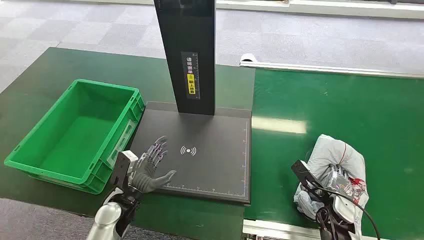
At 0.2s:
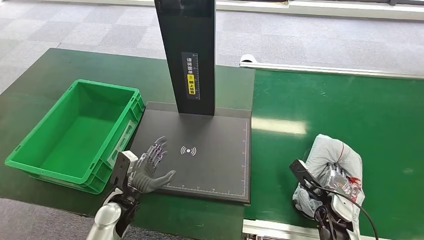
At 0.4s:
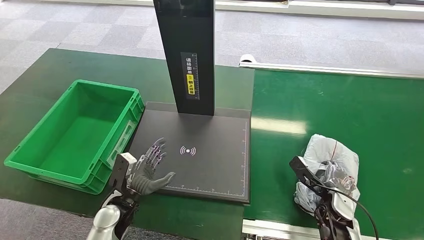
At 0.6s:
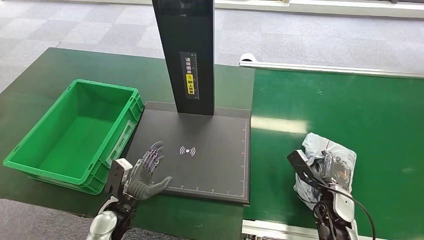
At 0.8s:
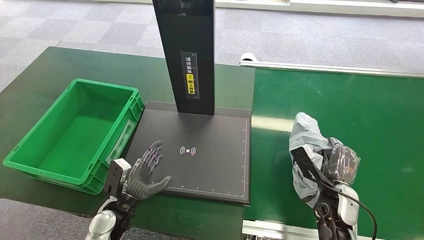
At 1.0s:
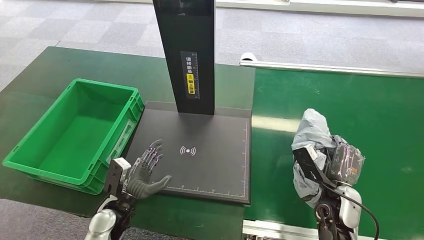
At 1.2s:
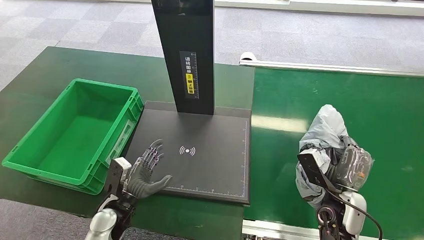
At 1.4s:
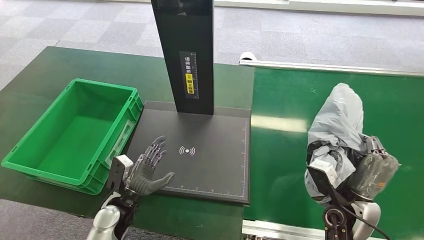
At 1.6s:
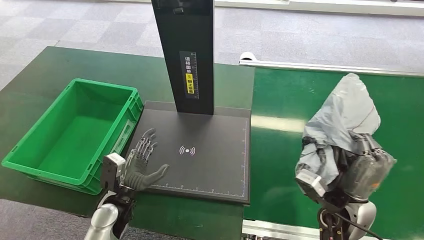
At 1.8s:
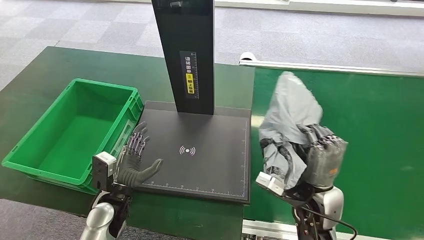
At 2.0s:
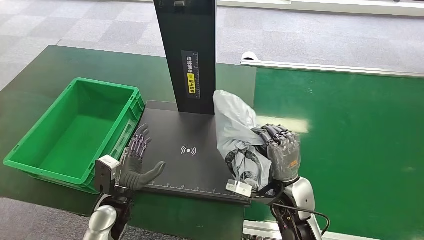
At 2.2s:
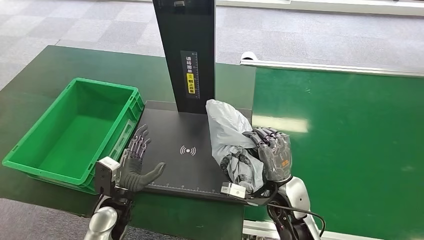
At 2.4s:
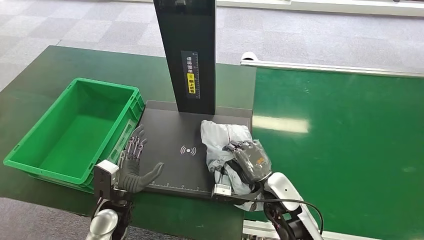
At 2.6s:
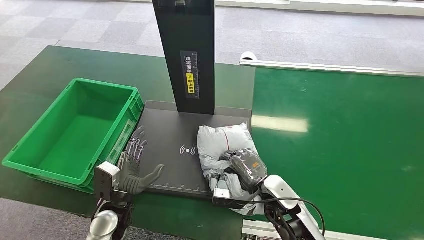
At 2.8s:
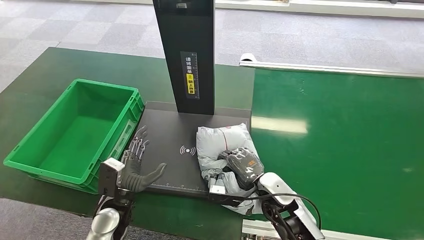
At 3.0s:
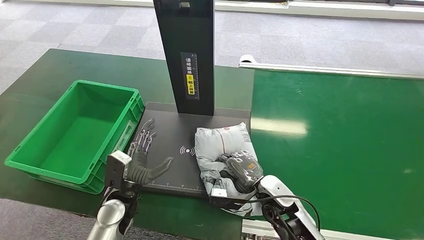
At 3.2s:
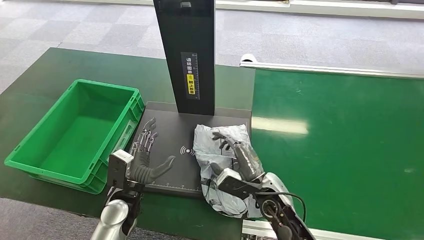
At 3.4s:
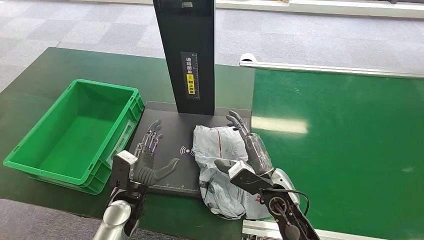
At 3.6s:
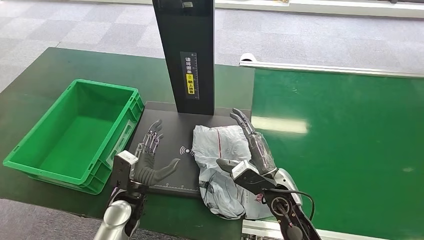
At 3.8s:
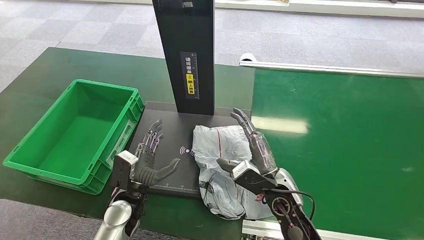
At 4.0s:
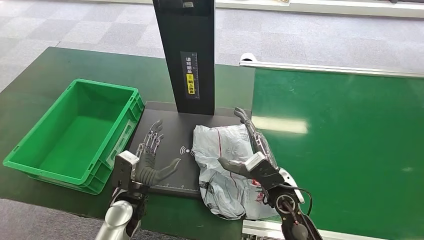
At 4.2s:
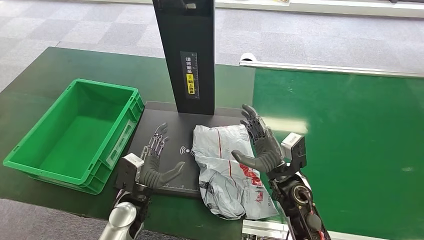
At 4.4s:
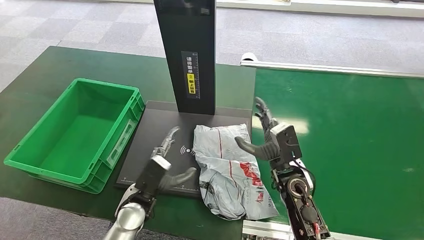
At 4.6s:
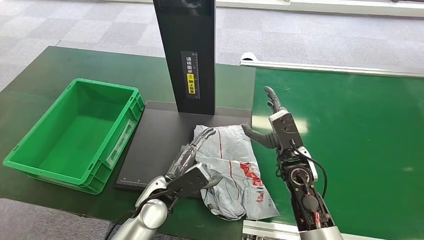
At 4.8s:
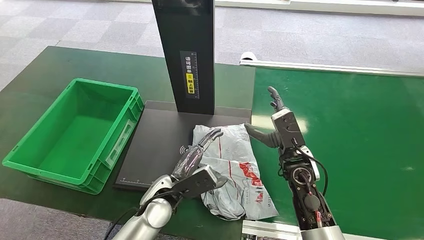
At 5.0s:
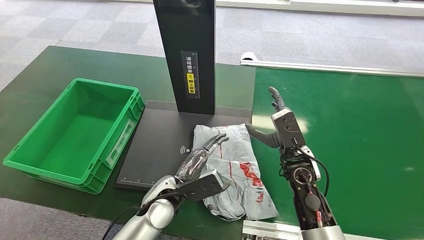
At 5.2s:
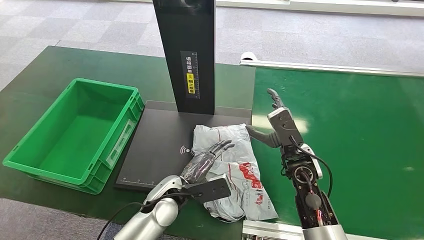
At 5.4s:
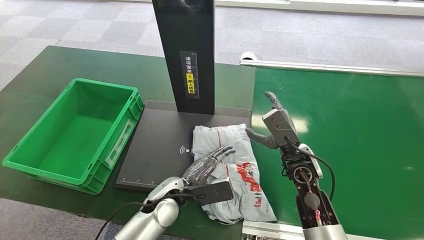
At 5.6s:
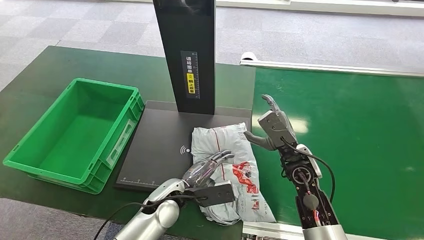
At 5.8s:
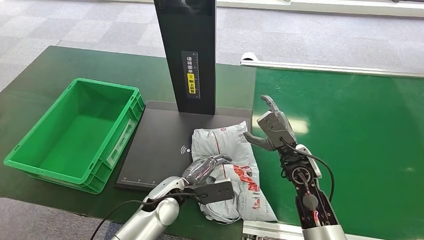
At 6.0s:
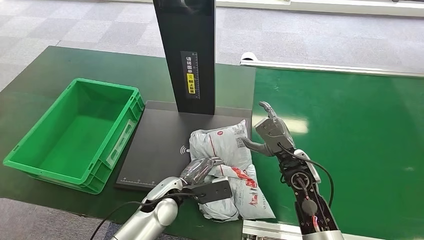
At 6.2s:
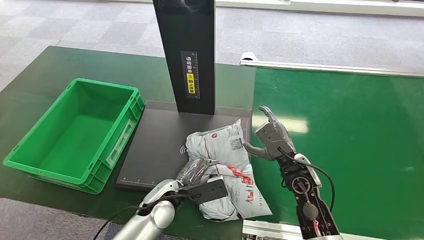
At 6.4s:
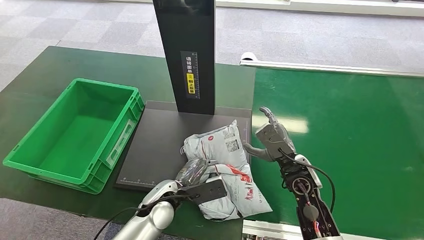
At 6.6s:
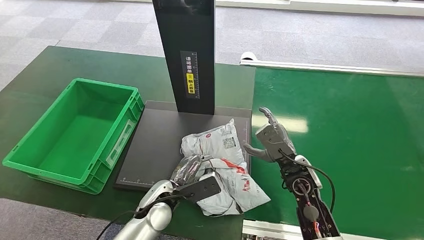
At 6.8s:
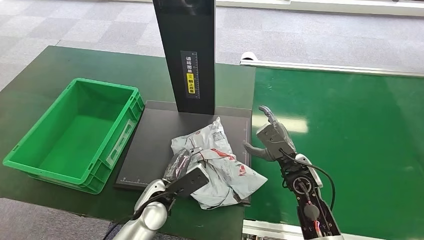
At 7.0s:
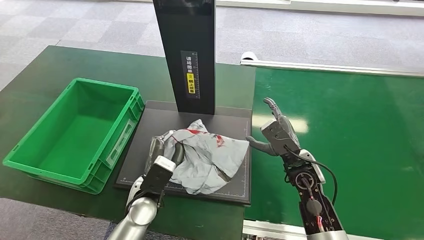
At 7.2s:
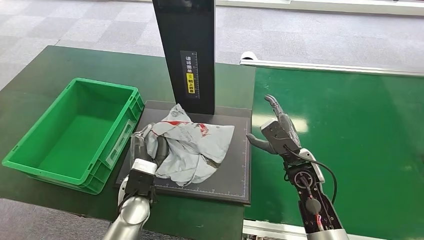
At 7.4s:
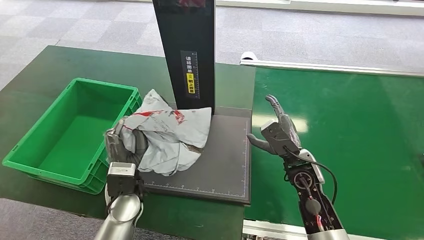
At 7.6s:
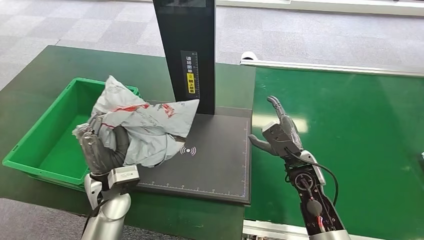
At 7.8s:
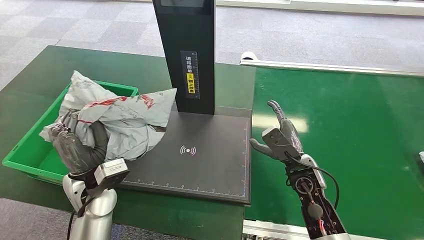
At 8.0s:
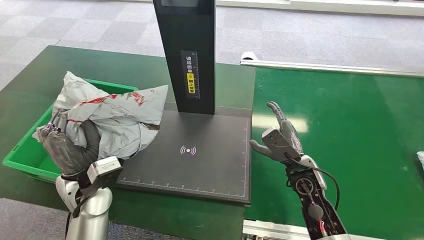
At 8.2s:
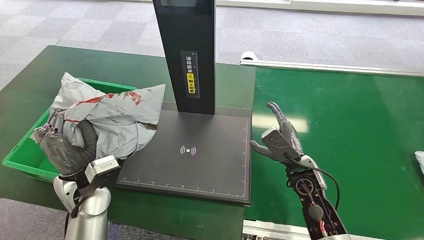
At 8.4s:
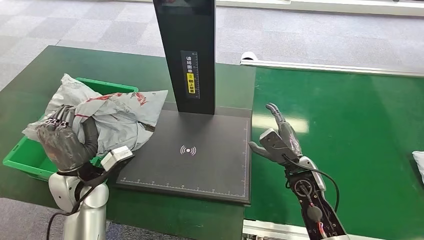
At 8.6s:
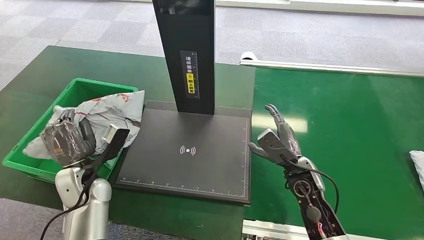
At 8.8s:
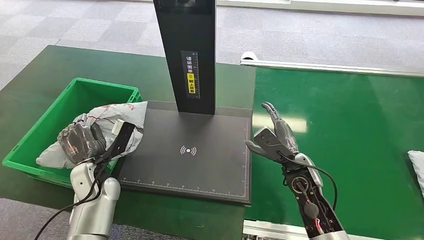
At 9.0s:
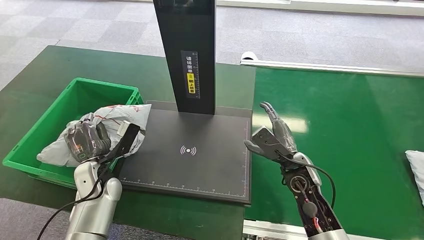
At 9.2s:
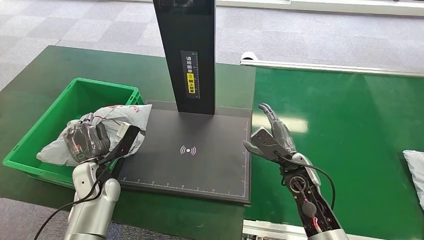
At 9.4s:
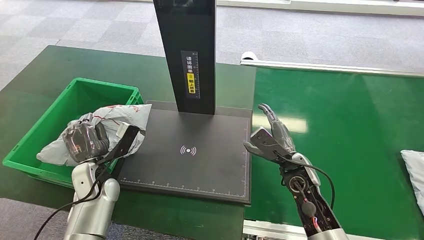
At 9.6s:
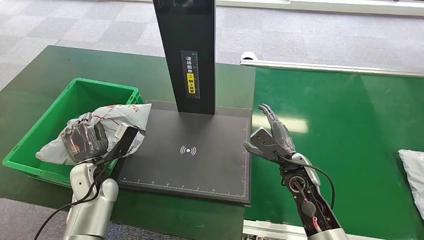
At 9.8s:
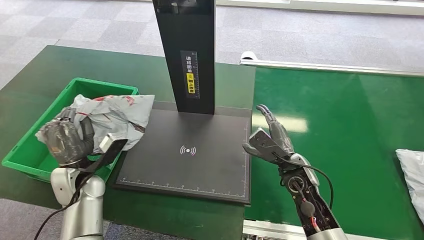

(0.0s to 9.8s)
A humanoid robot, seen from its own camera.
Step, 0.0s - 1.8s: Pick up the package from the conveyor belt.
Step, 2.0s - 3.8s: Place the package onto the inbound machine.
Step, 4.2s - 7.4s: Pick up the package from the inbound machine.
2.8s - 4.2s: The right hand heads upward, covering roughly 5 cm.
4.2s - 5.6s: The left hand travels to the right by some 10 cm, while the right hand ends up approximately 5 cm from where it was.
7.0s - 8.4s: The left hand shifts some 15 cm to the left and upward.
8.4s - 9.8s: The left hand shifts by roughly 5 cm.

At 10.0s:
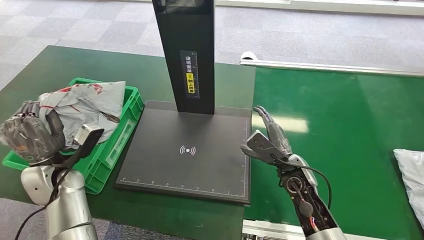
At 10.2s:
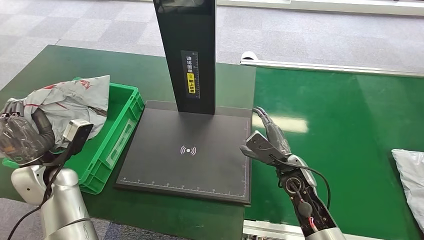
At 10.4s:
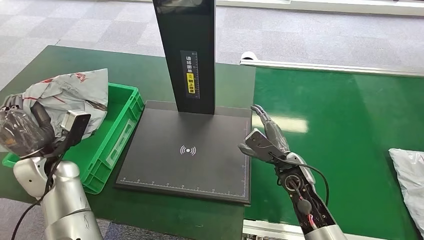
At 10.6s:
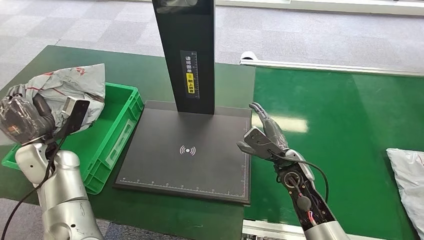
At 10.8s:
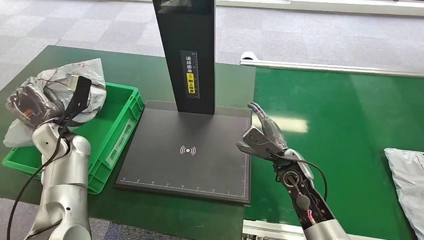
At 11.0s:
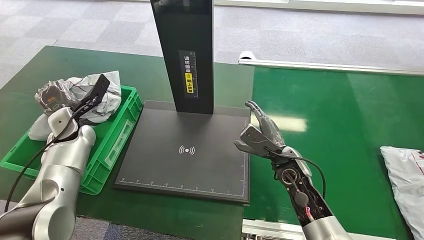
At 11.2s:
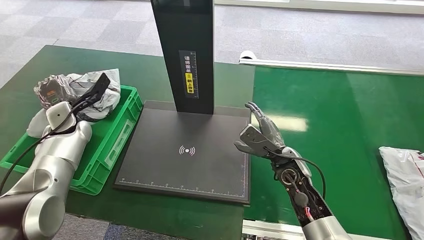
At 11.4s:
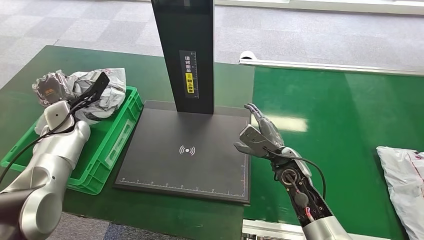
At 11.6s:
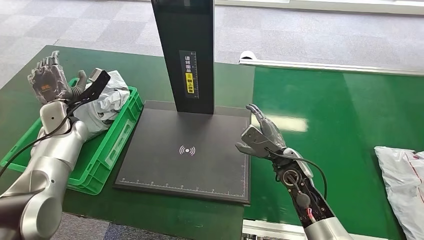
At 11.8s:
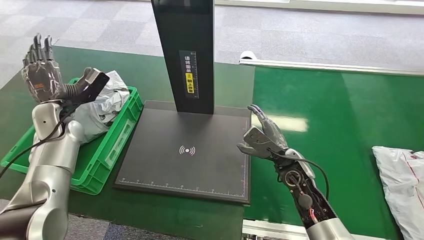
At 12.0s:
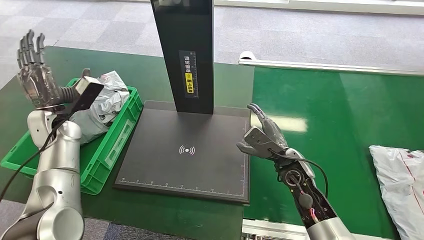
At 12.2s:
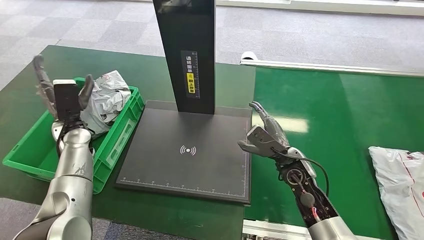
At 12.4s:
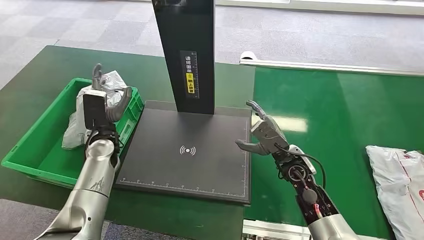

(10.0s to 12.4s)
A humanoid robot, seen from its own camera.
Step, 10.0s - 12.2s: Place the package into the parcel locker.

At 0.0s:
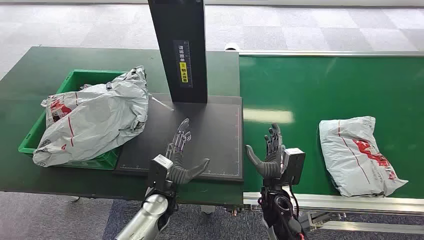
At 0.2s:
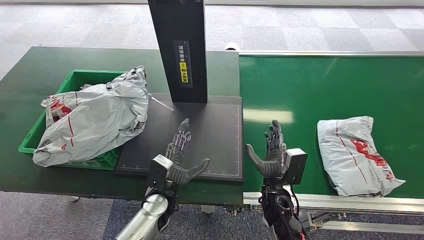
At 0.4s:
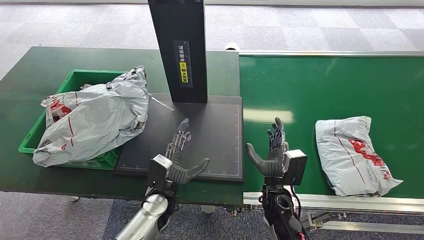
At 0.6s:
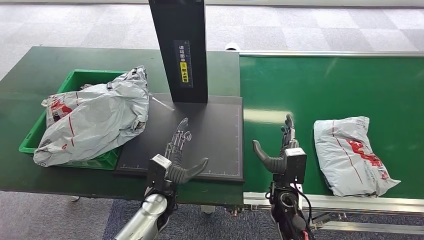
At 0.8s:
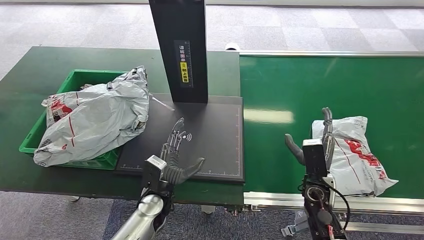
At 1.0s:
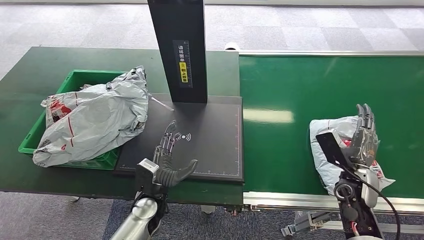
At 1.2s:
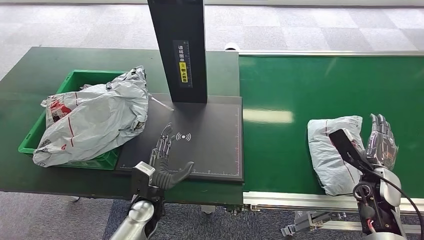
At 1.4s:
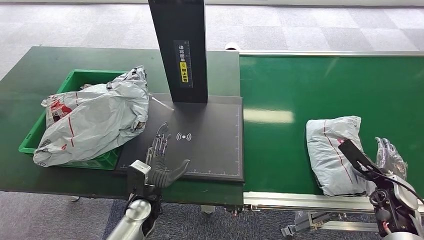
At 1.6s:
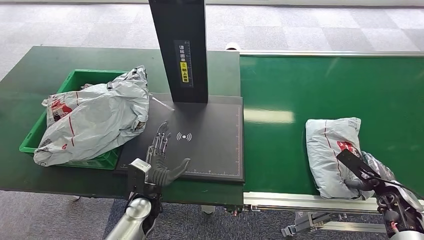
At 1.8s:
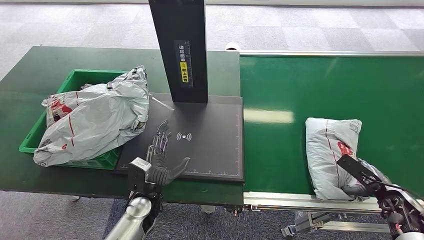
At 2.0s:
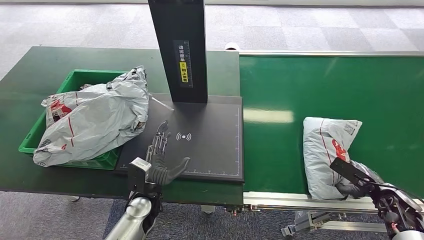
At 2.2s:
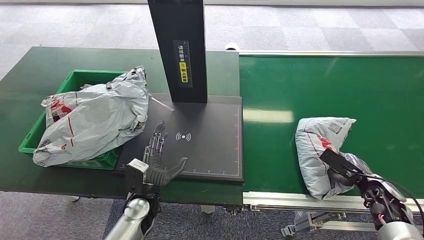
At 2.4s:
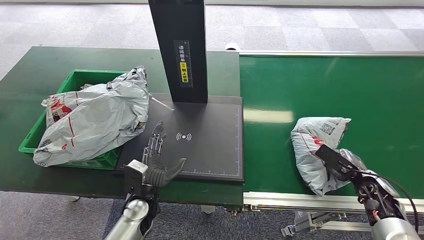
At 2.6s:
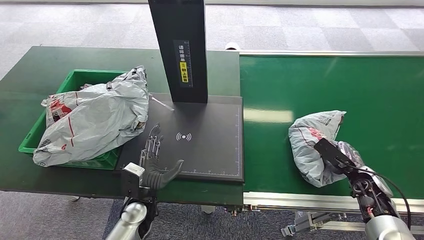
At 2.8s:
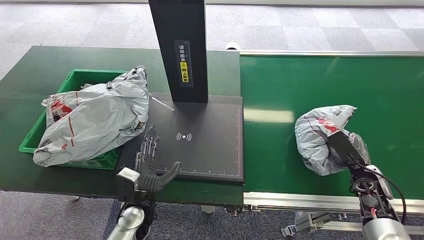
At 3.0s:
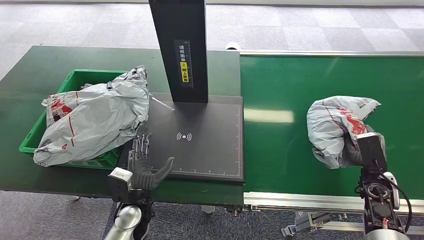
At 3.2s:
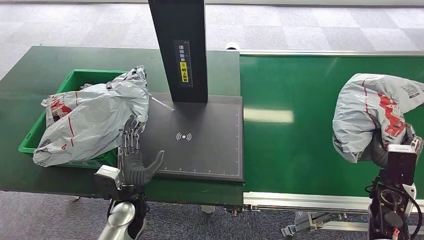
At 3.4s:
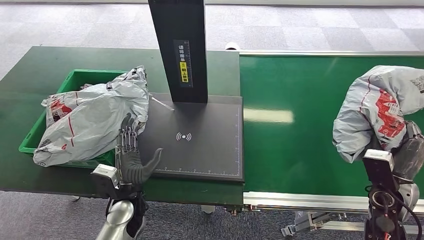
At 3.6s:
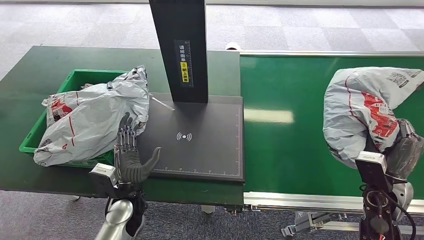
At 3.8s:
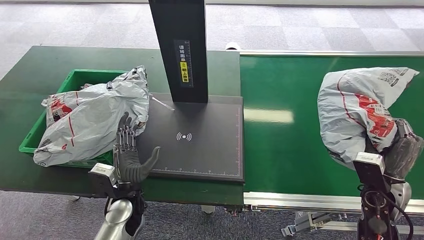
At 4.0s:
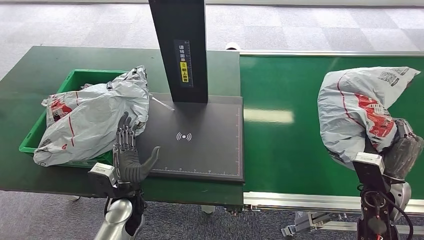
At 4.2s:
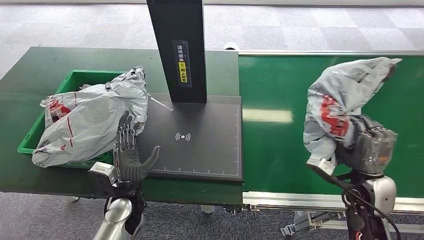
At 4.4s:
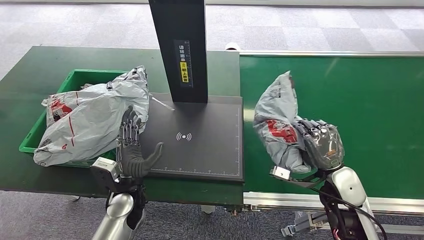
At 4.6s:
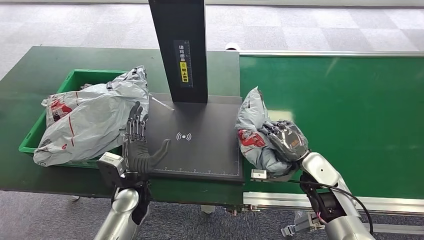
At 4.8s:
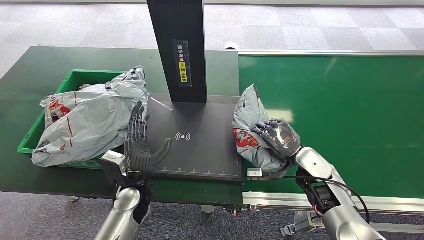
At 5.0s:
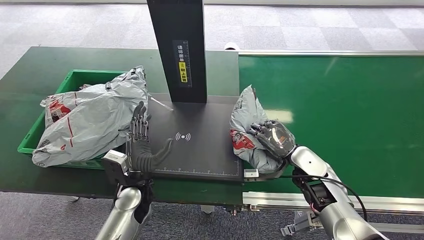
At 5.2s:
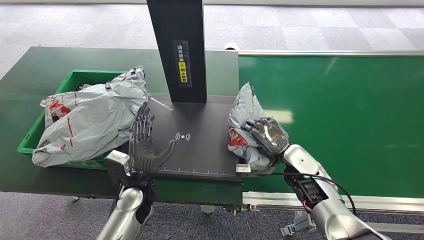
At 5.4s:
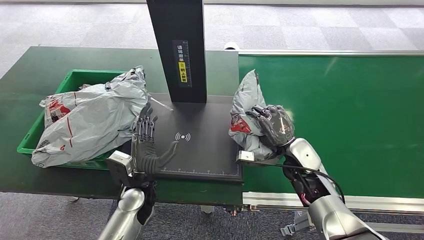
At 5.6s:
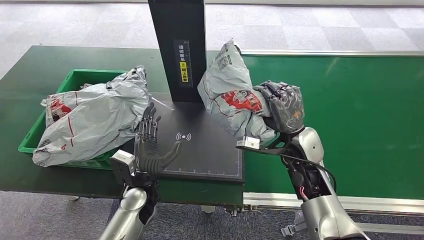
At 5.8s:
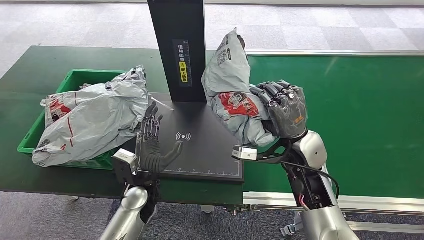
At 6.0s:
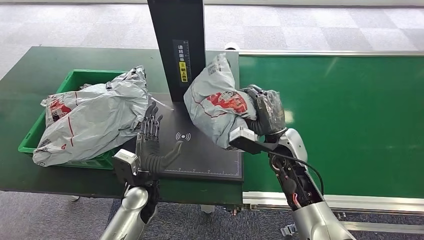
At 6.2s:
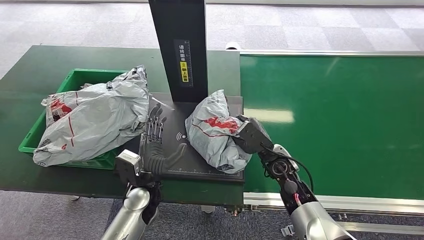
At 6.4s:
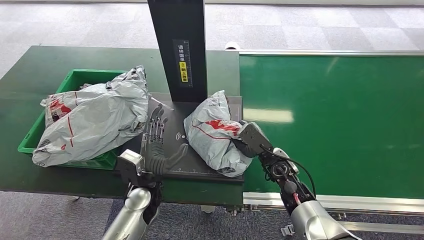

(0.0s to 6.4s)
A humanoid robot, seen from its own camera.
Step, 0.0s - 3.0s: Pick up the package from the conveyor belt.
1.6s - 3.2s: The right hand moves to the left, approximately 5 cm.
4.8s - 6.4s: The right hand shifts approximately 10 cm to the left, and moves some 10 cm upward and comes back.
